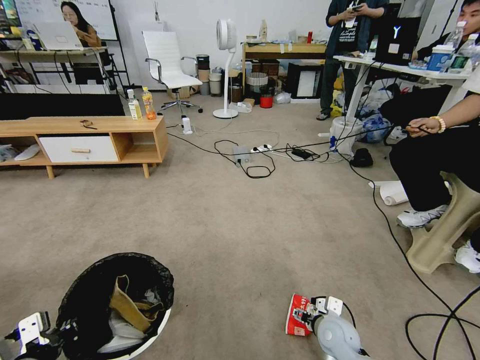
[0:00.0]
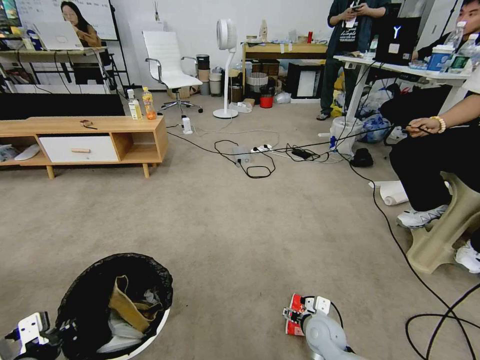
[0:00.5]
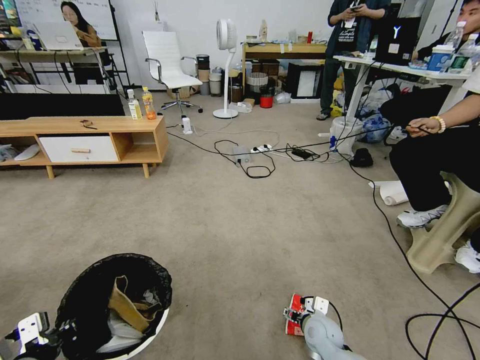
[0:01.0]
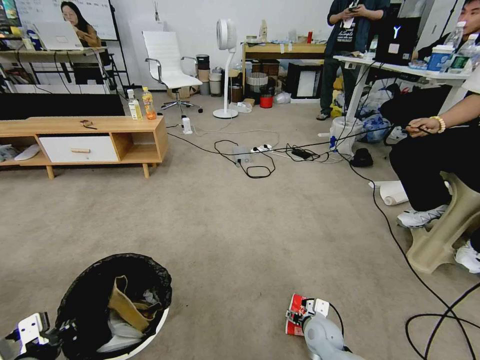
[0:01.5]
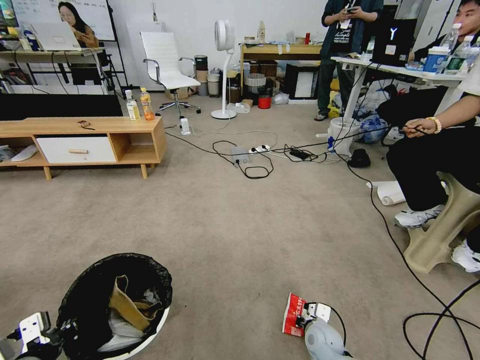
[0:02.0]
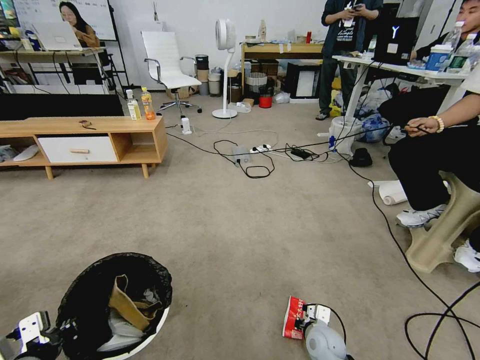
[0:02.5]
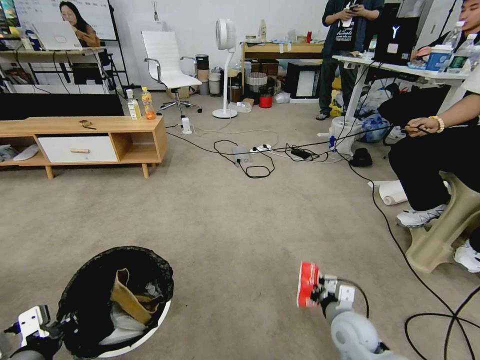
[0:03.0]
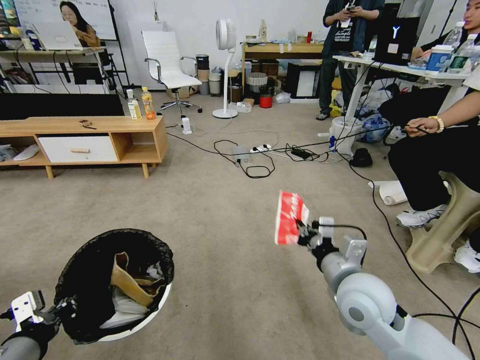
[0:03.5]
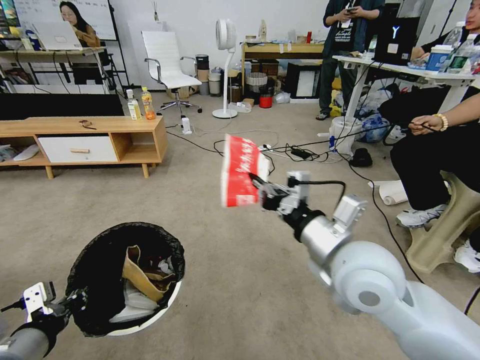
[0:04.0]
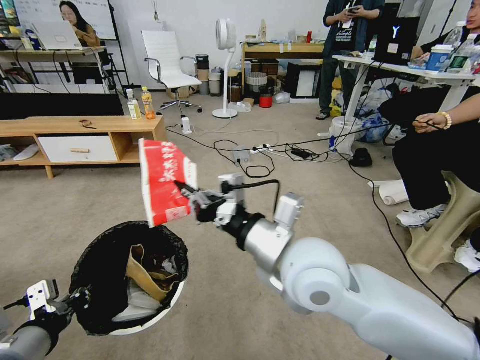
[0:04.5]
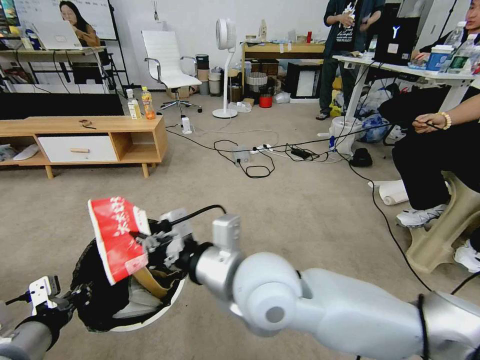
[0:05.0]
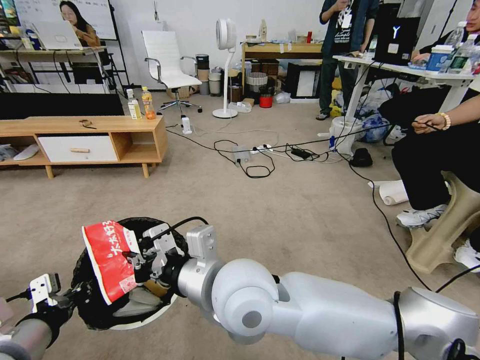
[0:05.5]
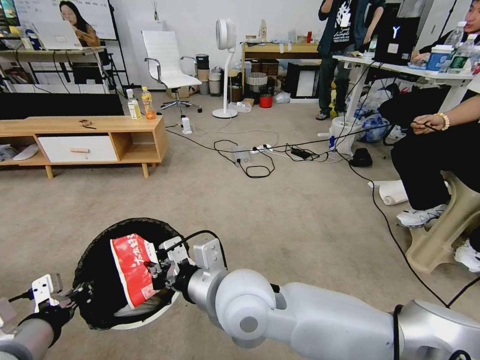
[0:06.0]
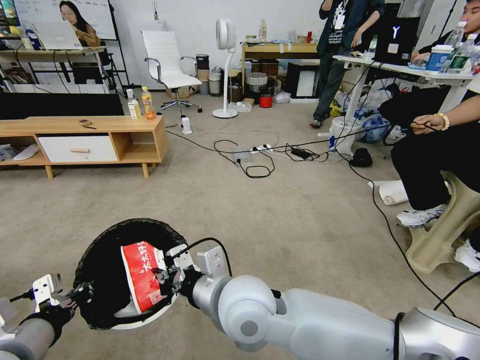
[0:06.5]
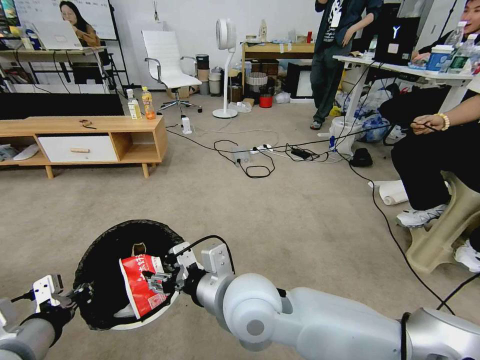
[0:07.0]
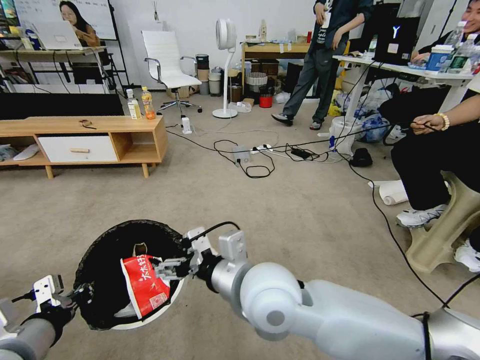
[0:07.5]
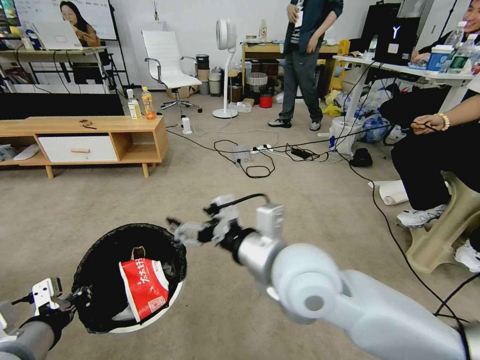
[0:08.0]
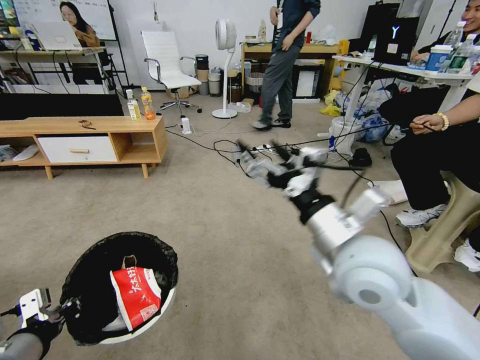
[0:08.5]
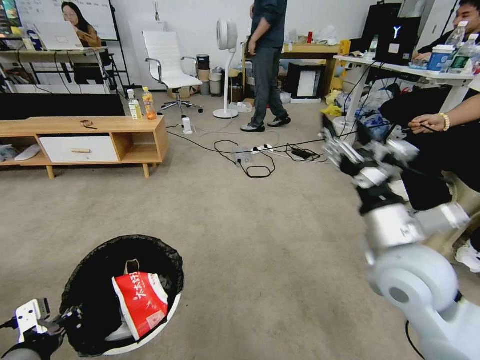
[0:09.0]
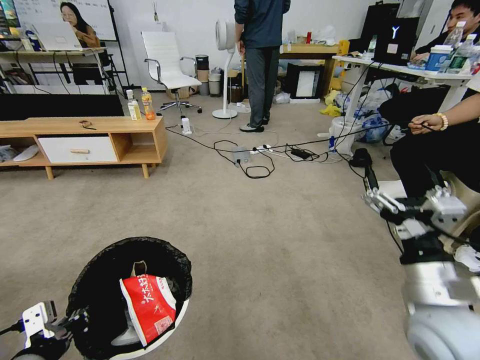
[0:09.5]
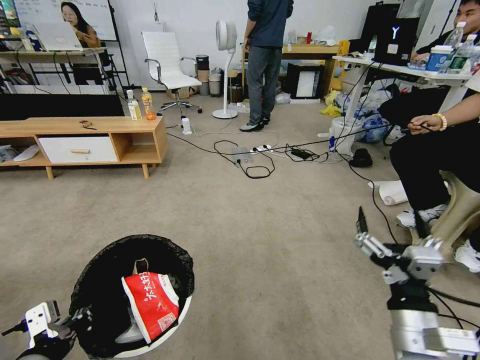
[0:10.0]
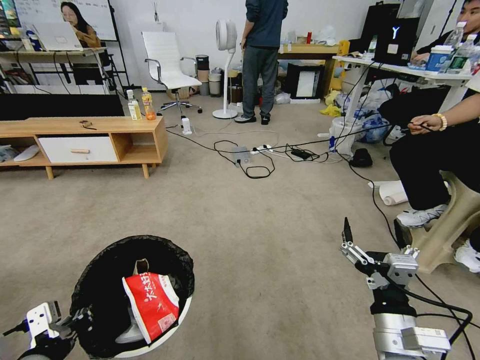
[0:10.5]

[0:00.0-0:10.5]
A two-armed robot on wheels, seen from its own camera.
Task of the whole recording: Pick up the trash bin and place the garbage on the floor into it.
0:00.0 to 0:02.0: The right gripper heads downward, covering about 5 cm, and closes.
0:02.0 to 0:04.0: The left gripper goes approximately 5 cm upward. Meanwhile the right gripper moves upward, some 40 cm, and closes up.
0:04.0 to 0:06.5: The right gripper moves to the left, some 20 cm.
0:06.5 to 0:08.5: The right gripper is displaced to the right and upward by about 20 cm, and opens up.
0:08.5 to 0:10.5: The left gripper goes approximately 5 cm to the right. The right gripper goes some 20 cm downward, backward and to the right.
